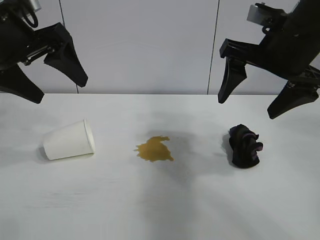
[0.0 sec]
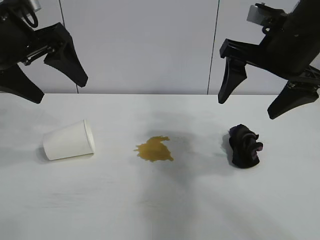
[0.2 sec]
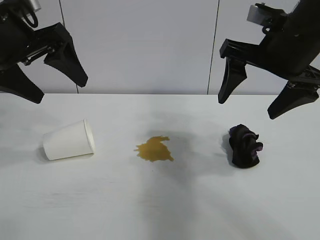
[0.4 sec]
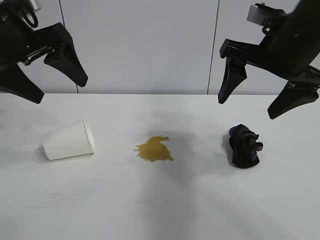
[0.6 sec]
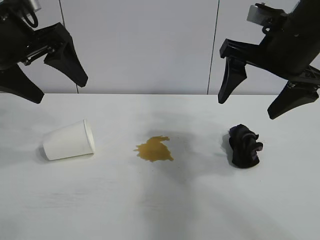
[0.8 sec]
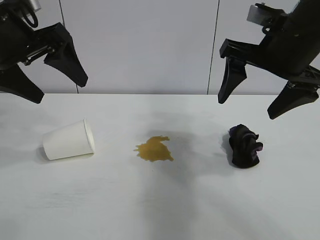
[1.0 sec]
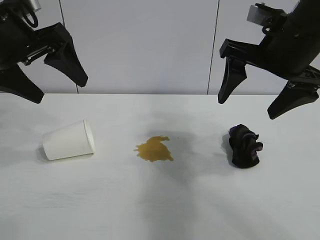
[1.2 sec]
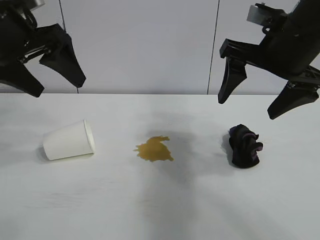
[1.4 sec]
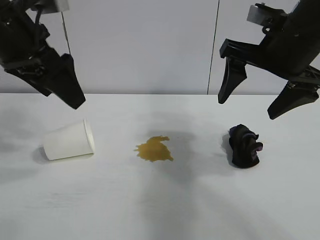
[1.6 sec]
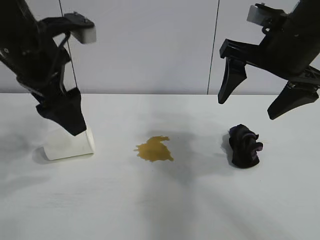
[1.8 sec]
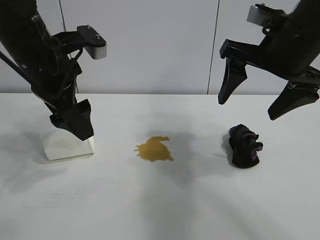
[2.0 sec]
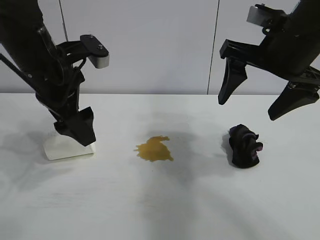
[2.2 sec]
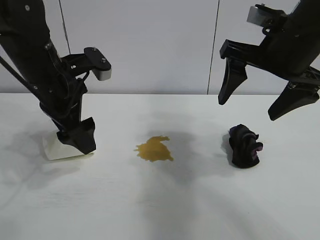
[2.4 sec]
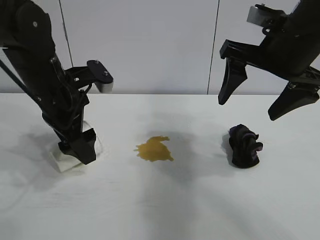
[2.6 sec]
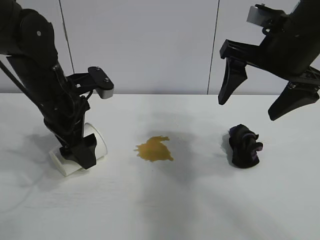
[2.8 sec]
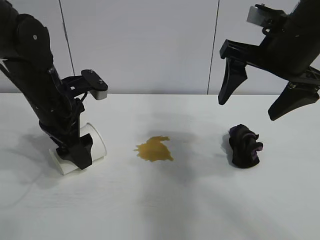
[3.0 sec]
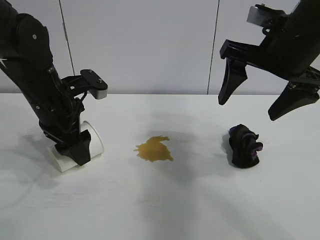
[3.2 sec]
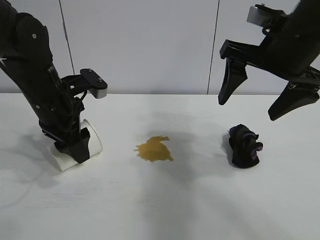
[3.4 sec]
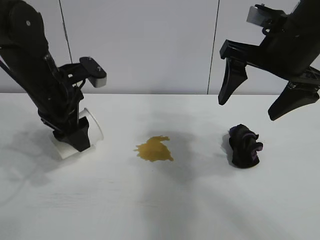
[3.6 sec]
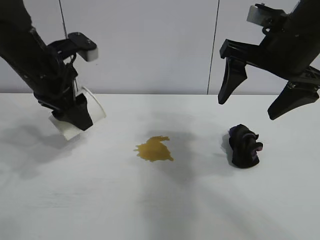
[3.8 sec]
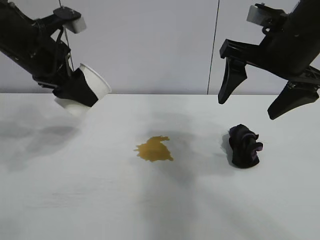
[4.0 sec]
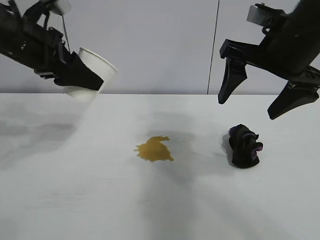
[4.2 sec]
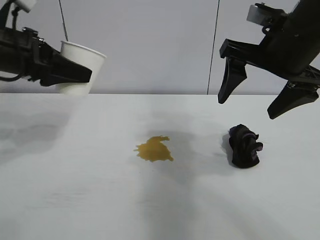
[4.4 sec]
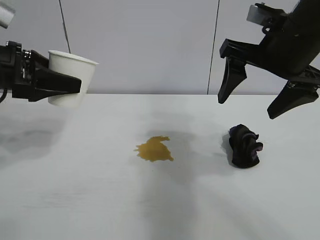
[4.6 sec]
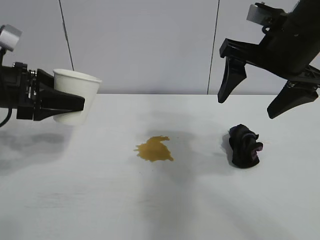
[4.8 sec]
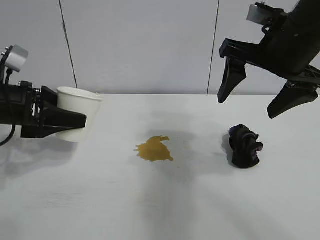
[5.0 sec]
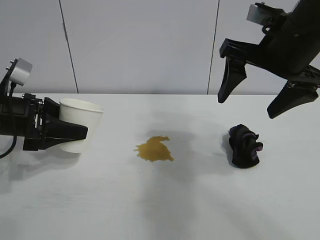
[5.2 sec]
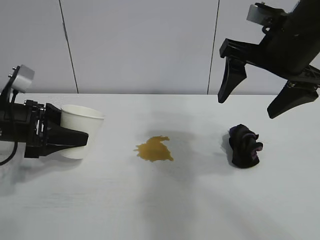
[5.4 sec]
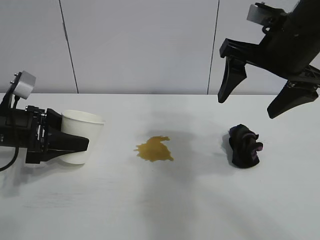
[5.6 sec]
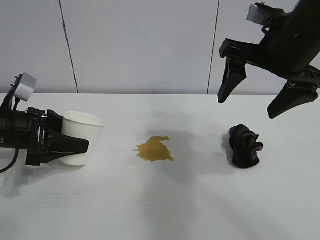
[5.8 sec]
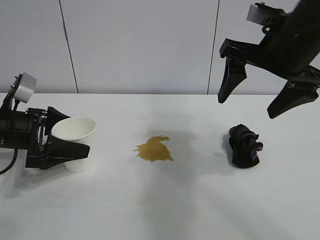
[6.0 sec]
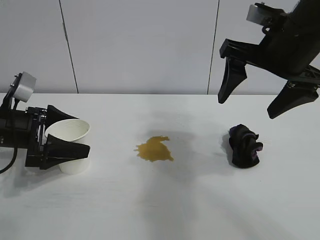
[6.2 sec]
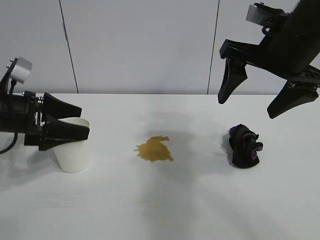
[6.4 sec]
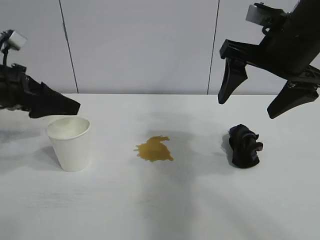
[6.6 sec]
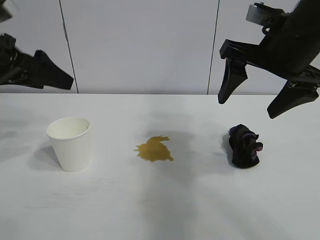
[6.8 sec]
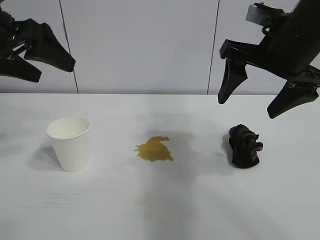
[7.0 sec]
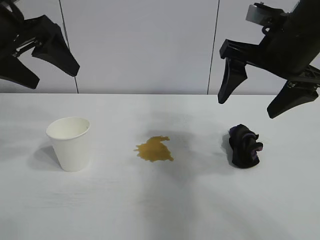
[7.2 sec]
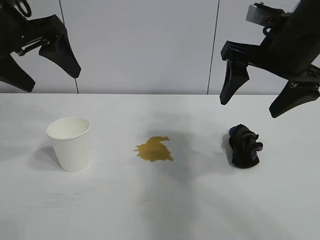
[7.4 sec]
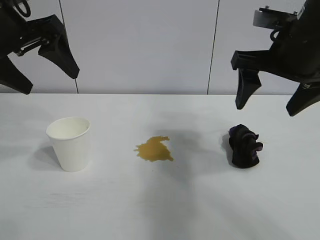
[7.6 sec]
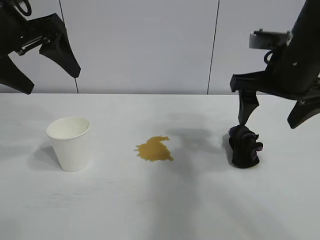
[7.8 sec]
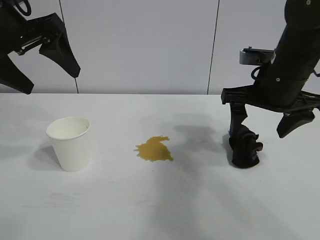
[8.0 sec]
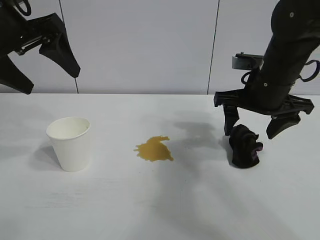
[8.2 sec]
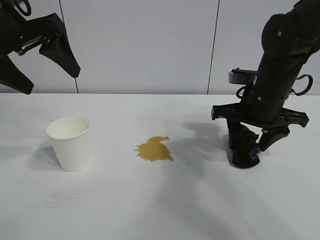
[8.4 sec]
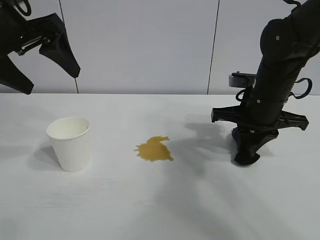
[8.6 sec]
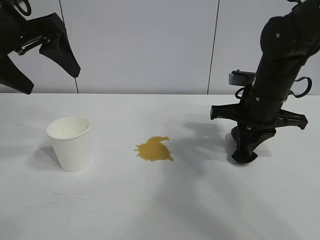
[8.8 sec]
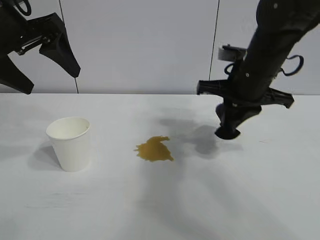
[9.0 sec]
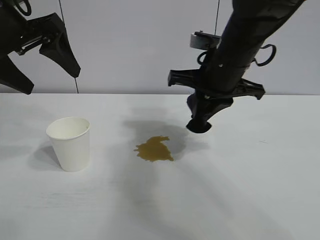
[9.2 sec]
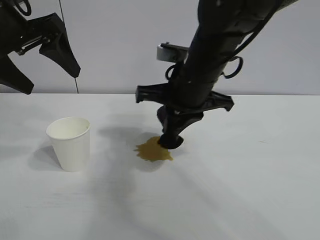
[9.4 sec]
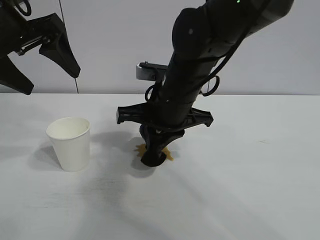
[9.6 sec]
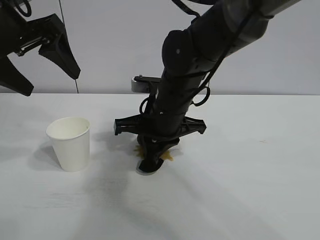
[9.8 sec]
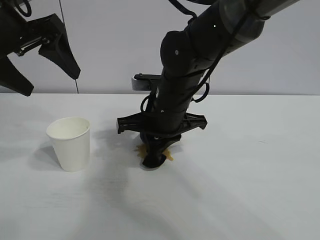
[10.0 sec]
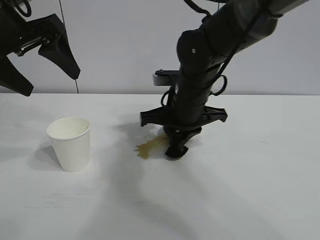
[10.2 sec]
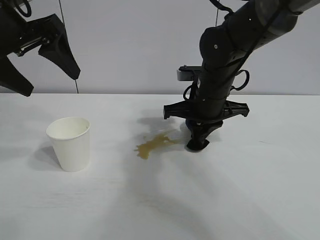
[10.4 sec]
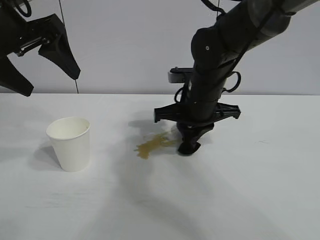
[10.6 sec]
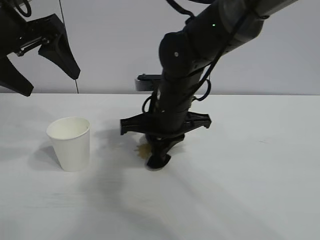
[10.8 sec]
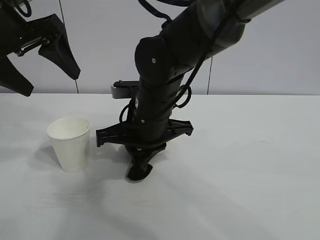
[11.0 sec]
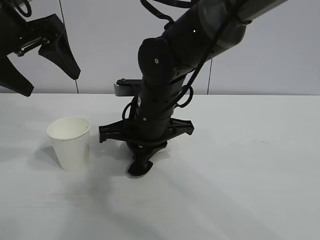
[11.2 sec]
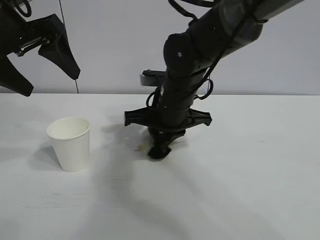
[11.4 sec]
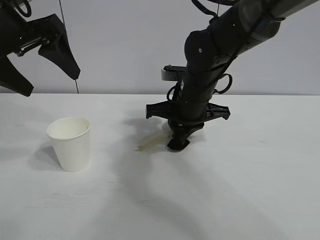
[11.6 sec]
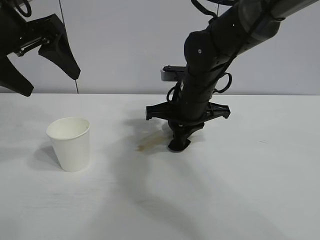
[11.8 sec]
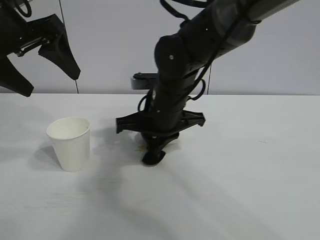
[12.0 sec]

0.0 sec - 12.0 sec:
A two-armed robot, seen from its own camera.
Task of the whole recording: the left gripper pick up the fallen cup and place it upright, the right gripper grasp the black rag and wipe the stain on the table, the right gripper put the black rag back in its original position.
Step, 1.4 sec - 3.2 sec: Grasp the paper cup with left gripper.
Step, 3.4 sec - 5.8 sec: Stand the paper cup upright with left gripper.
Step, 6.2 sec - 8.6 sec: Grasp the rag with right gripper.

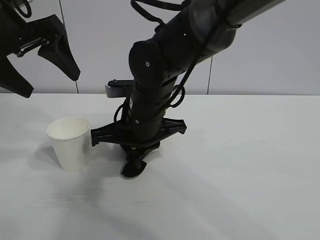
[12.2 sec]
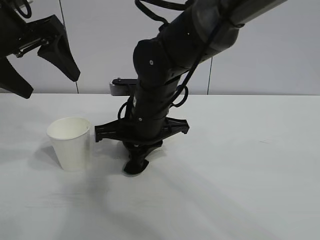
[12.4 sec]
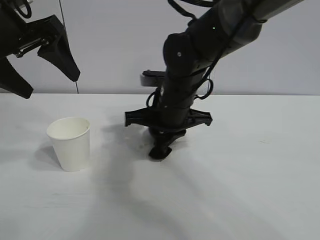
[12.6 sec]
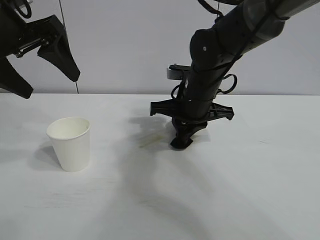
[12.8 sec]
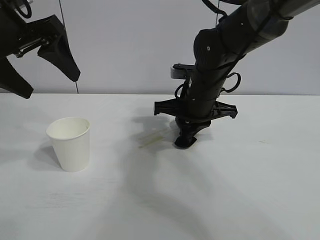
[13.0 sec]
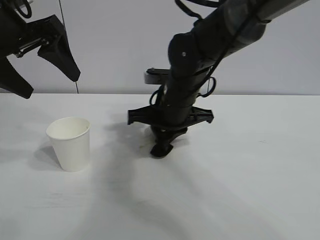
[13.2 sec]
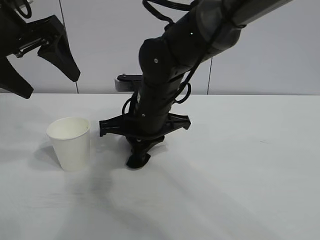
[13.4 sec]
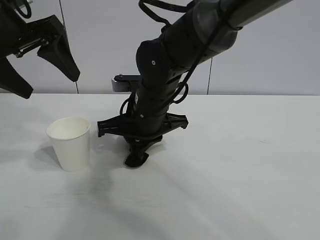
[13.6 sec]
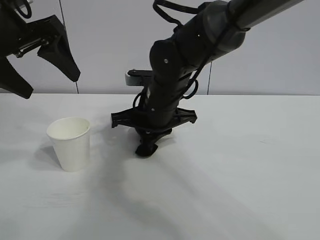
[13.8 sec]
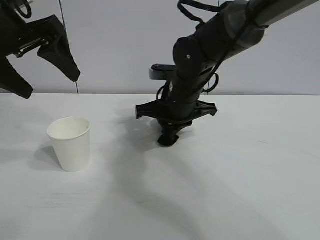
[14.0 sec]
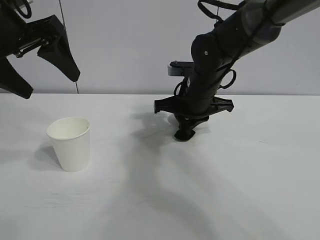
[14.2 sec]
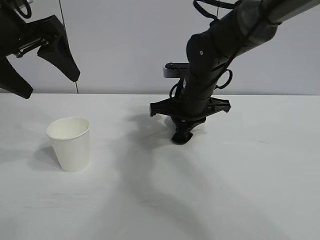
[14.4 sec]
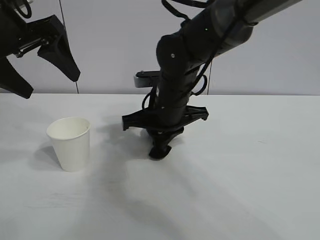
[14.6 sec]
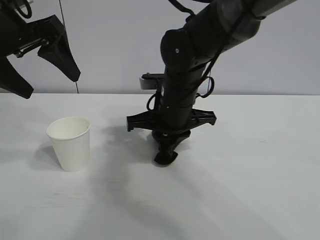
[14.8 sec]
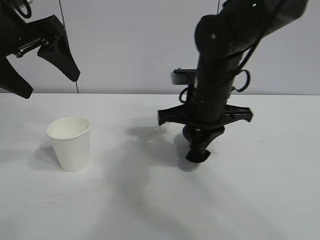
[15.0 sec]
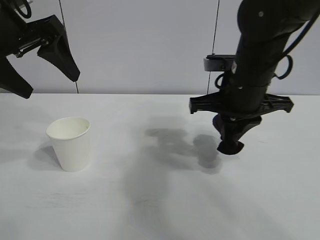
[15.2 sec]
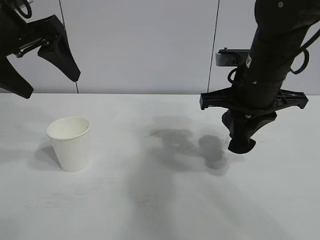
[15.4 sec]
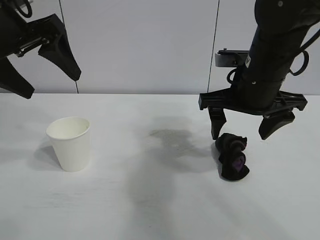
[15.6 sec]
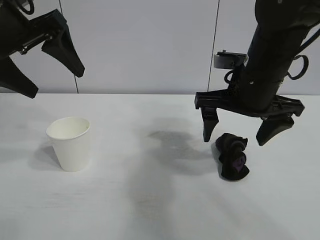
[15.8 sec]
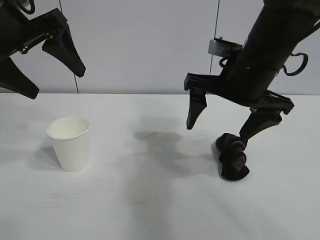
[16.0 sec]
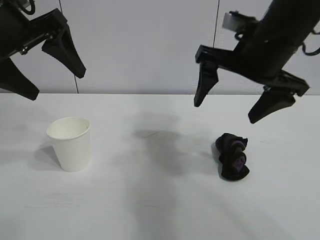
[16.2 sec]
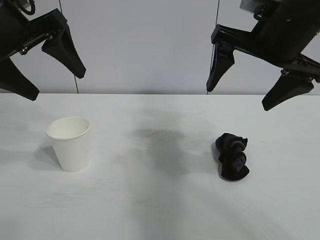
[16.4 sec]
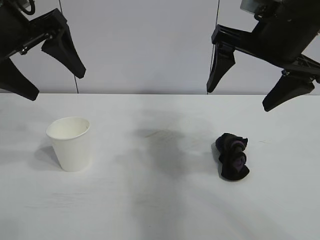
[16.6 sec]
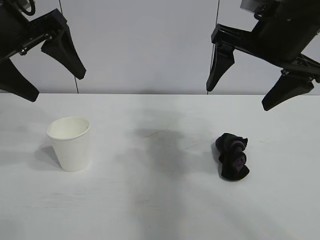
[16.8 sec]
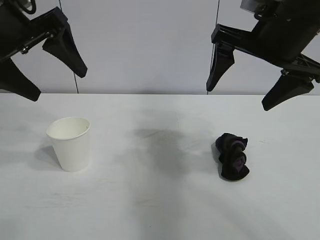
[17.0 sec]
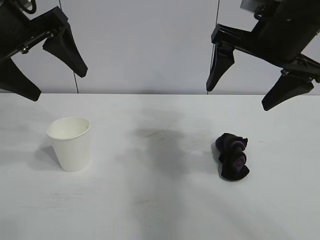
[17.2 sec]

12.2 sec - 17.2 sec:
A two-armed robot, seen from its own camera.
Task of the whole recording: the left gripper pick up the fallen cup and place it upright, the right gripper grasp the black rag and wipe the stain on the table, the right gripper put the black rag back in its original position.
Step, 12.2 sec - 14.8 sec: Wipe the stains off the table with the rag with right gripper.
Step, 15.0 sec - 15.6 sec: Place the rag on the table with right gripper.
